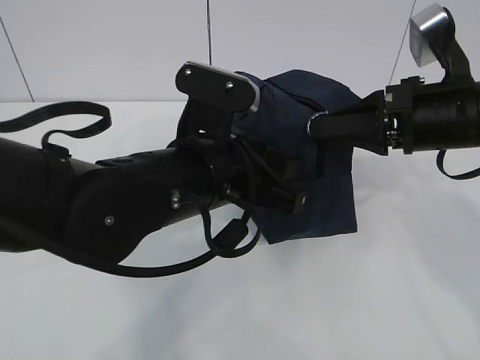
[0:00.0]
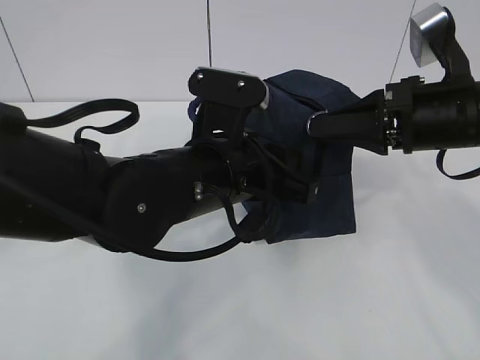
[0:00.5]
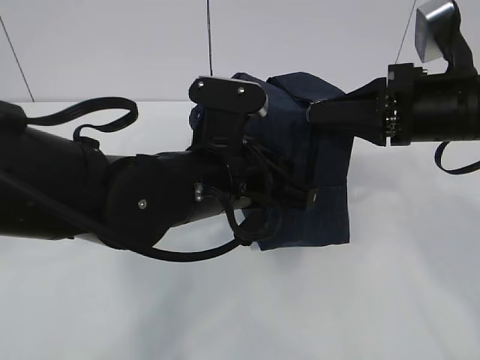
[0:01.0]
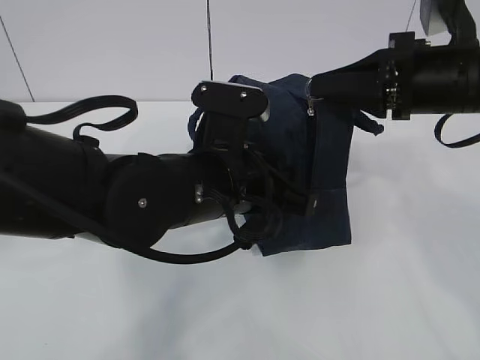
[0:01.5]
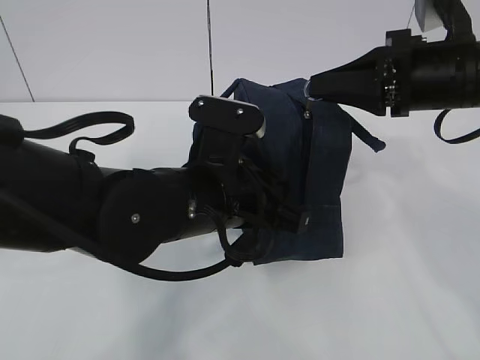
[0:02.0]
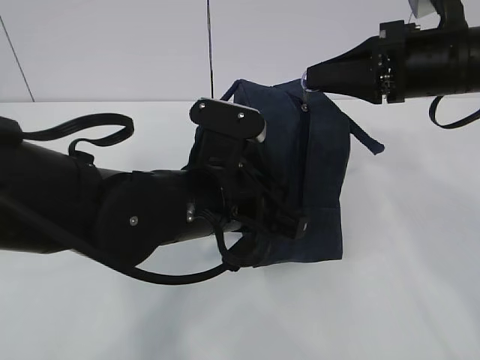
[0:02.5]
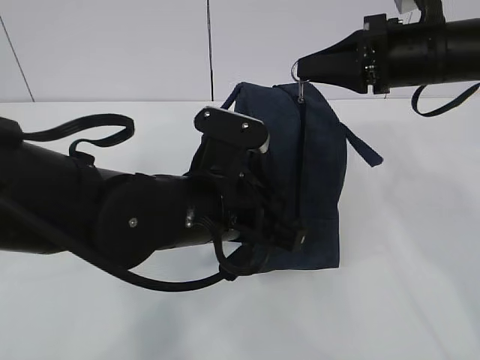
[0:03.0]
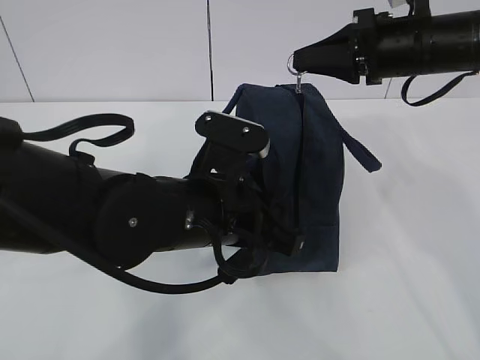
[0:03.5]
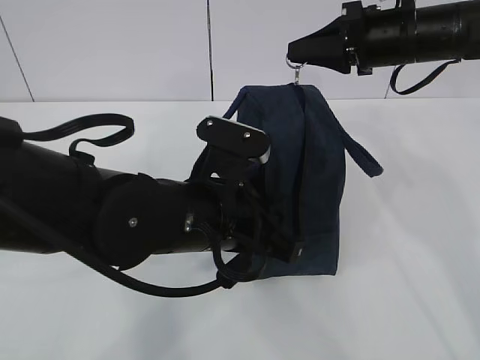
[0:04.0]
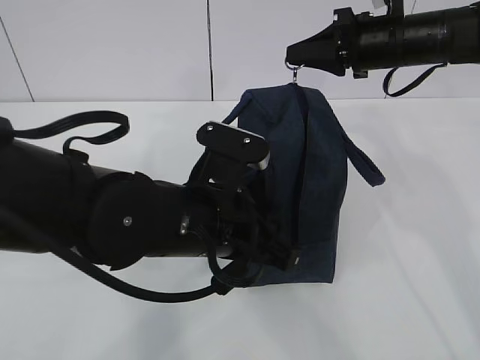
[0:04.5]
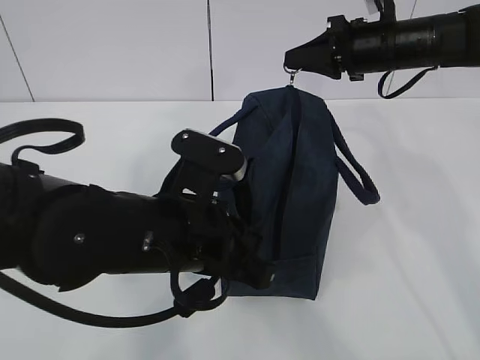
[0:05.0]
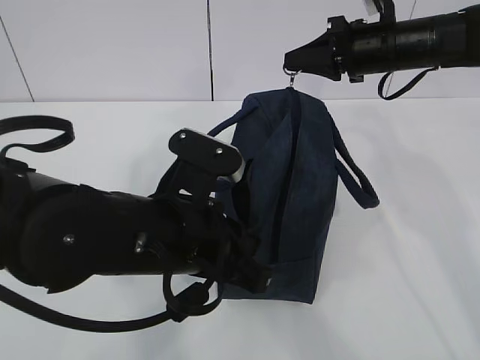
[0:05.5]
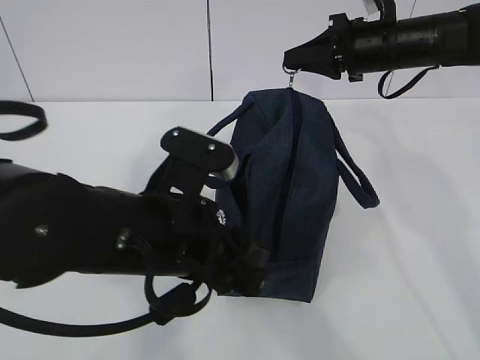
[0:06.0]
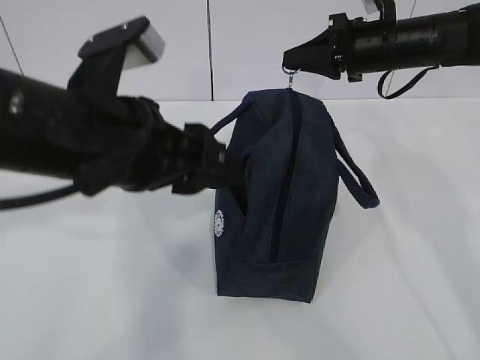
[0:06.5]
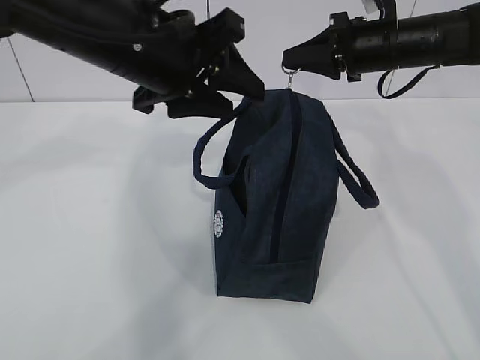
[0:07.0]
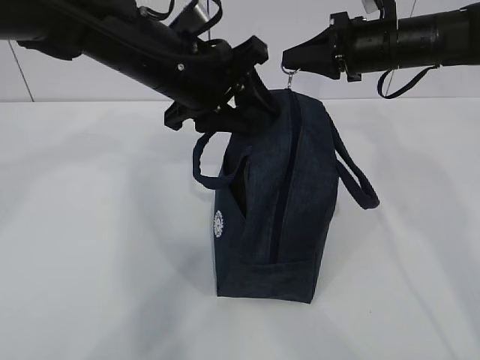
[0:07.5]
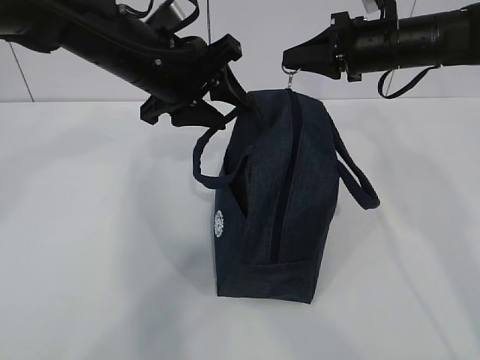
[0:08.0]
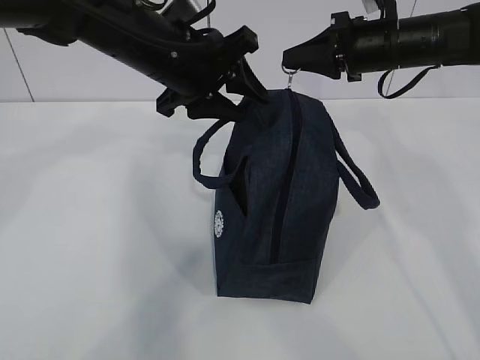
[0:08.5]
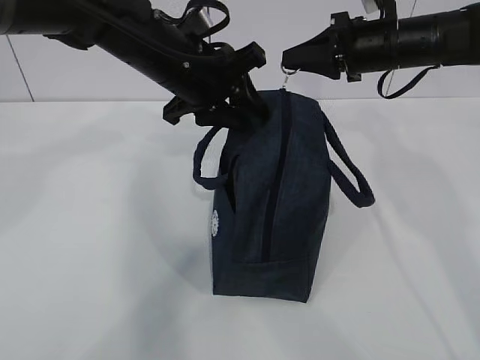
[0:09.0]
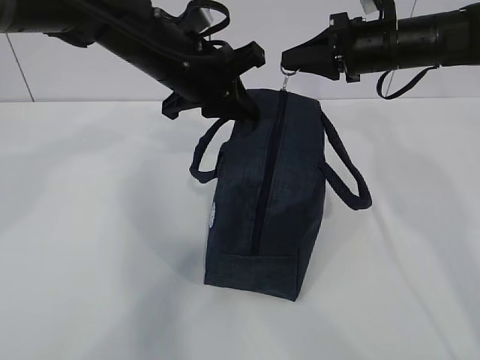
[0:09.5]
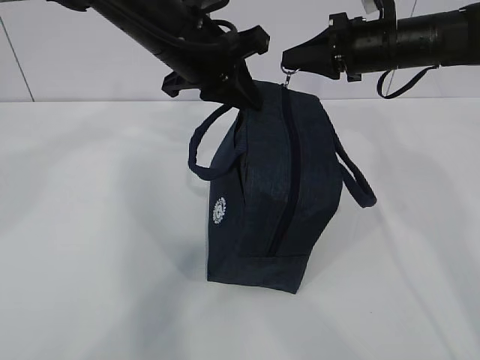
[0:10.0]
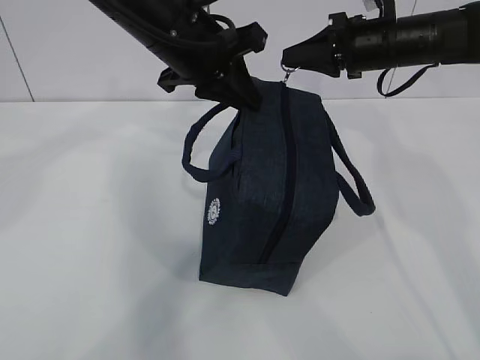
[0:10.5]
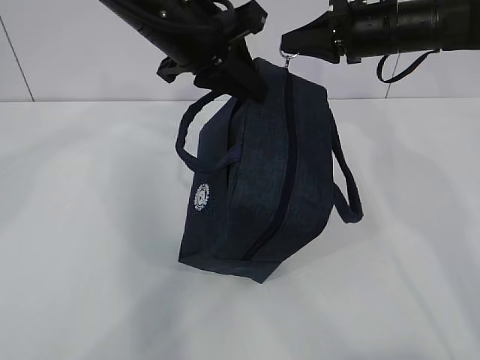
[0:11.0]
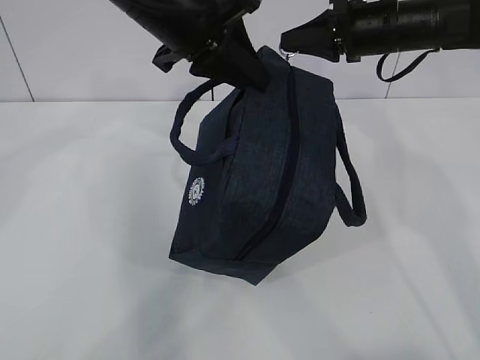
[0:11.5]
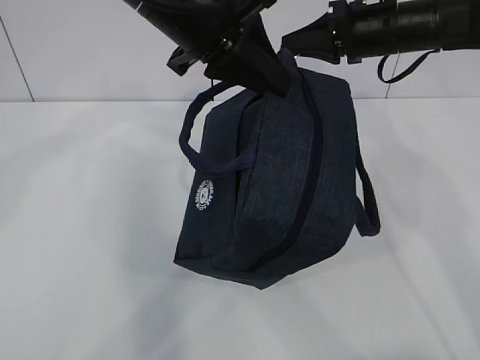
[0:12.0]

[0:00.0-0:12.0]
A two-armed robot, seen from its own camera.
0:00.0 to 0:02.0: The left gripper closes up.
0:02.0 to 0:04.0: The right gripper moves forward, roughly 10 cm.
0:04.0 to 0:06.0: The left gripper changes place by approximately 5 cm, and opens its fingers.
0:06.0 to 0:08.0: The left gripper goes approximately 15 cm forward.
0:08.0 to 0:10.0: The left gripper closes.
0:10.0 to 0:12.0: The left gripper goes about 10 cm upward and backward.

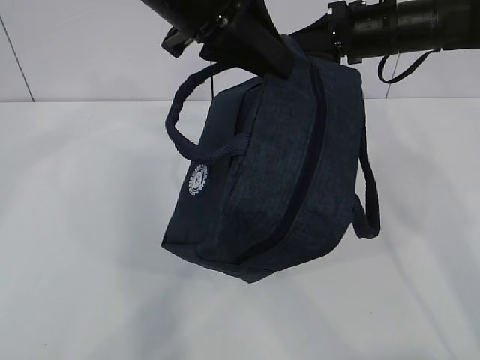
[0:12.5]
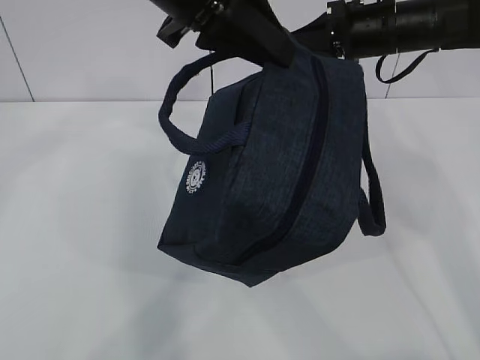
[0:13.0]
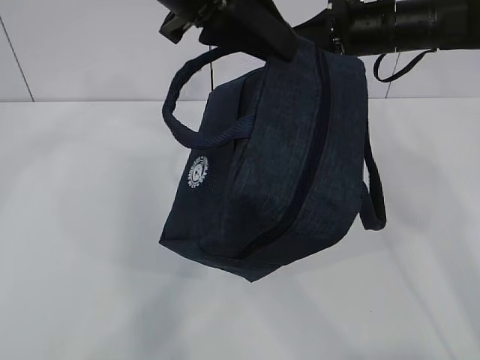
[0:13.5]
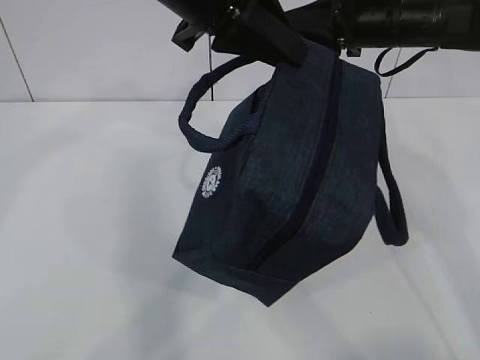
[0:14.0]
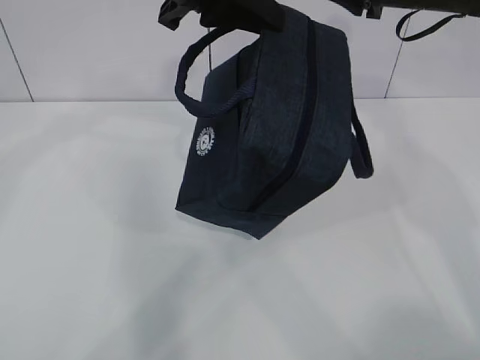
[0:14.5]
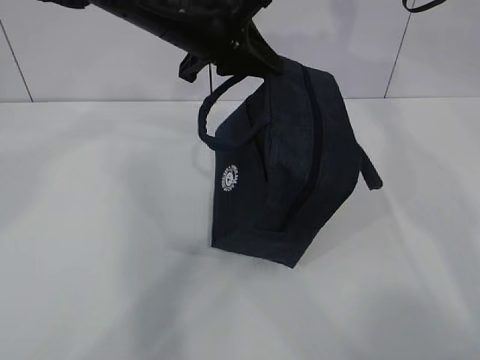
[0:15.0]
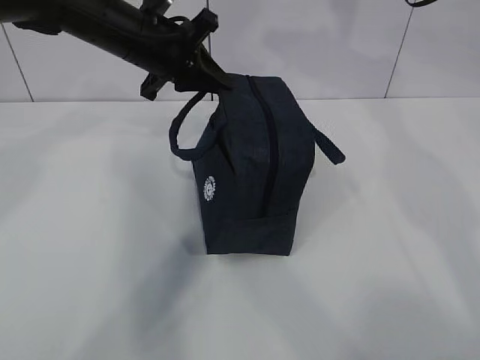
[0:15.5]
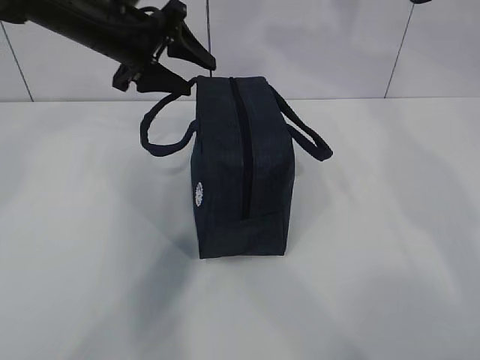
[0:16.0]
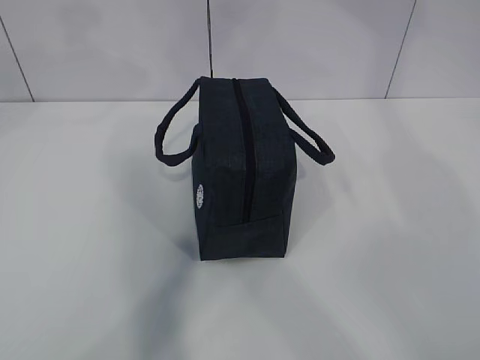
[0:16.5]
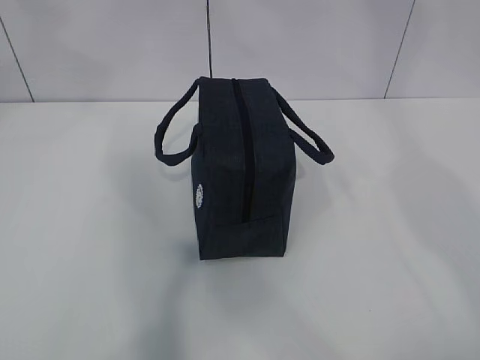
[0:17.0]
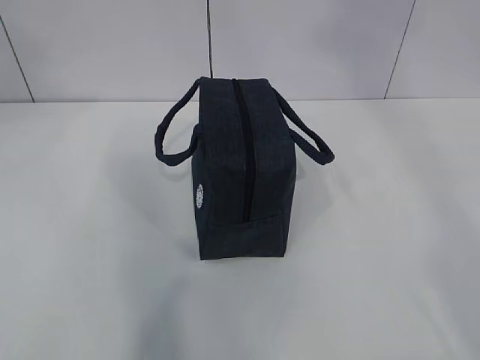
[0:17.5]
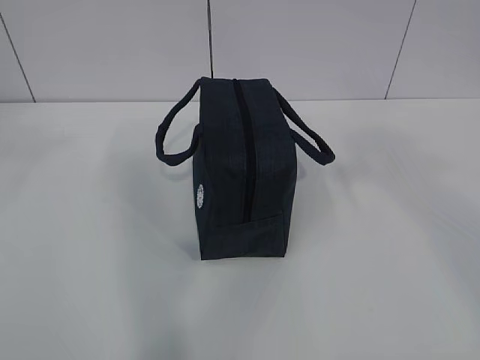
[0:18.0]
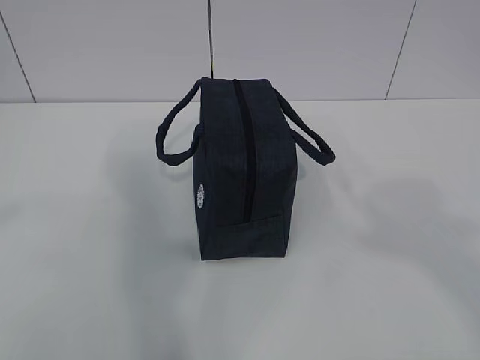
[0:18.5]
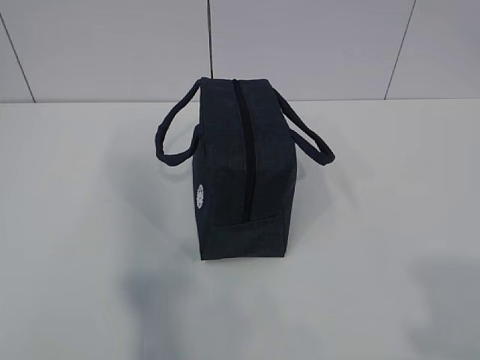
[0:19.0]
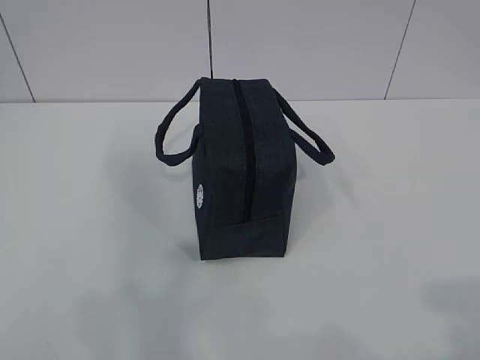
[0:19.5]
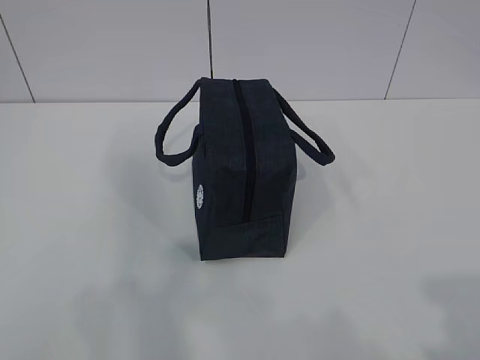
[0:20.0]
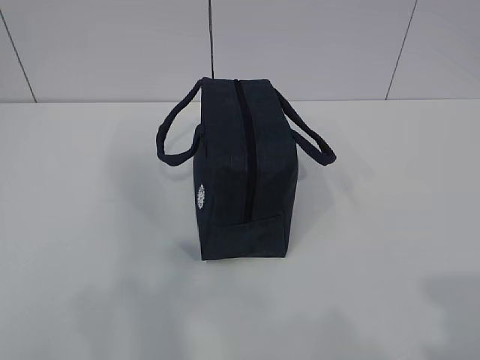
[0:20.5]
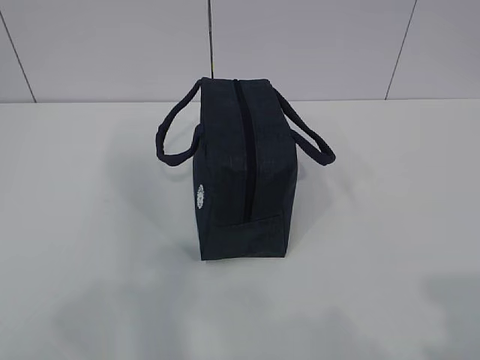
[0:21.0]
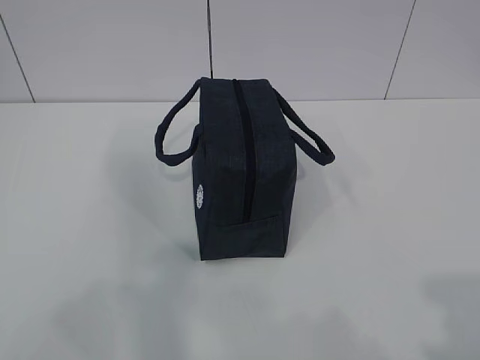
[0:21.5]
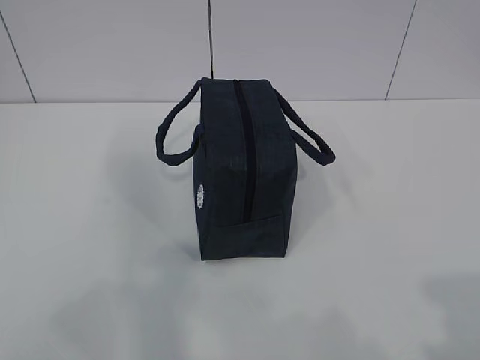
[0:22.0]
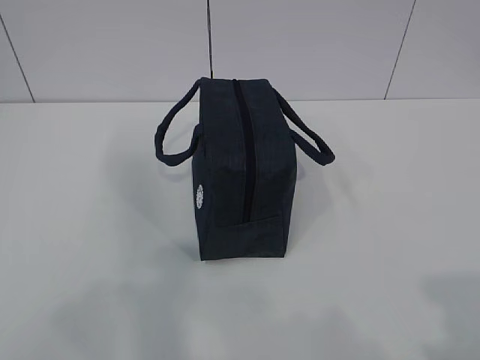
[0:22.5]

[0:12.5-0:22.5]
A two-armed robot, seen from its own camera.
Step, 0:12.5 to 0:16.0: zip up the zipper to close the bag.
0:12.5 to 0:14.5: The right gripper shifts about 5 cm upward, and opens its fingers.
0:14.5 to 0:16.5: The left gripper shifts some 15 cm to the left, reaches about 10 cm downward, then returns, and opens up; the right gripper heads upward, covering some 20 cm.
0:16.5 to 0:18.5: Both grippers move backward, roughly 40 cm.
0:20.5 to 0:22.5: The grippers make only small movements.

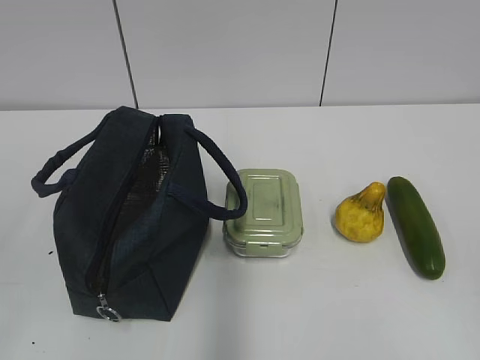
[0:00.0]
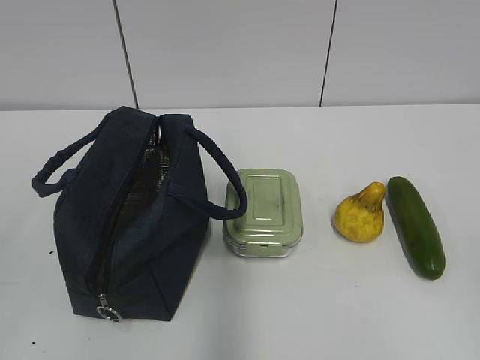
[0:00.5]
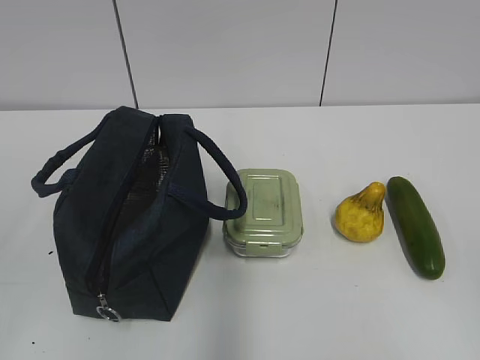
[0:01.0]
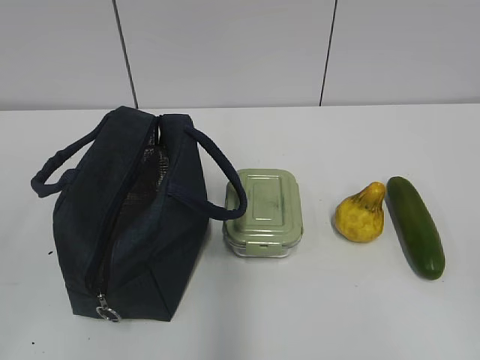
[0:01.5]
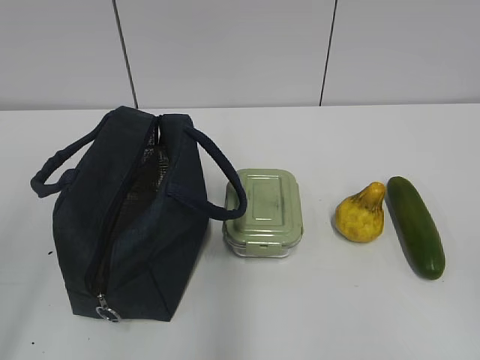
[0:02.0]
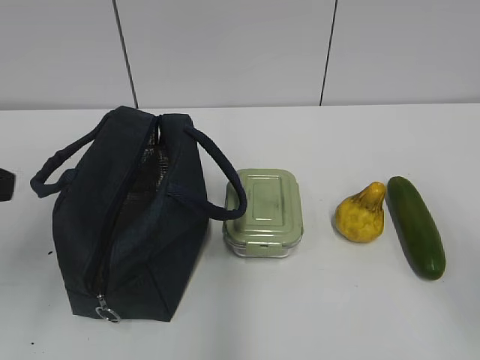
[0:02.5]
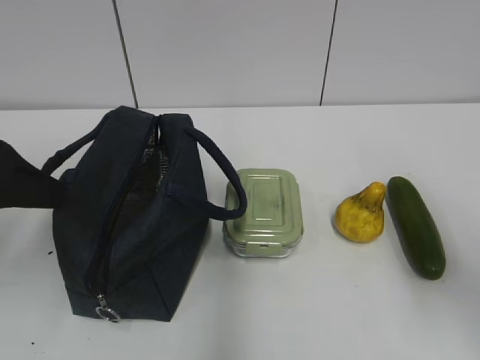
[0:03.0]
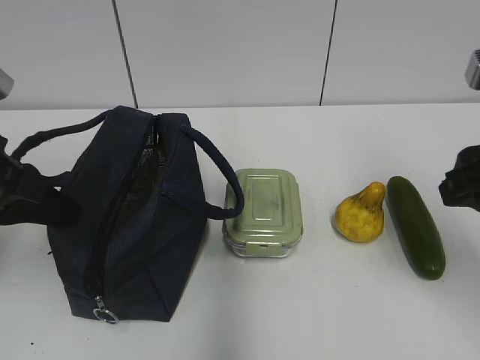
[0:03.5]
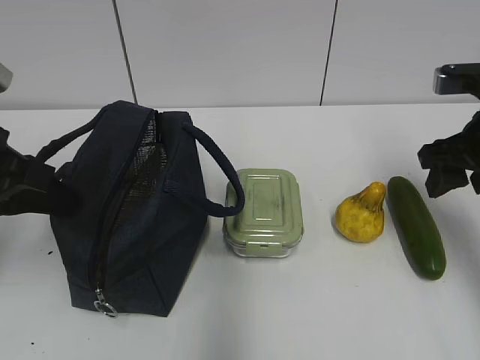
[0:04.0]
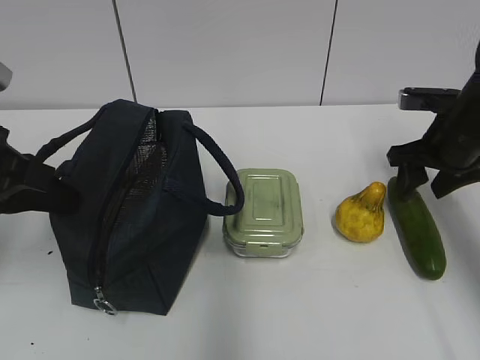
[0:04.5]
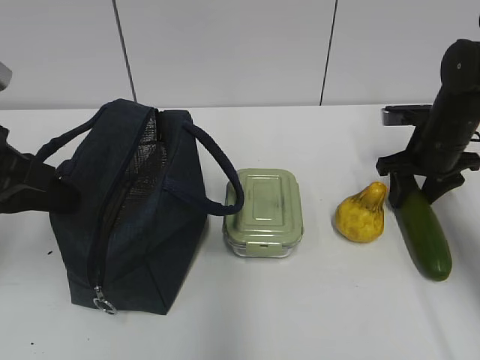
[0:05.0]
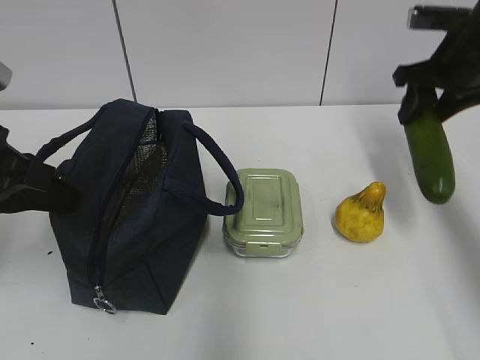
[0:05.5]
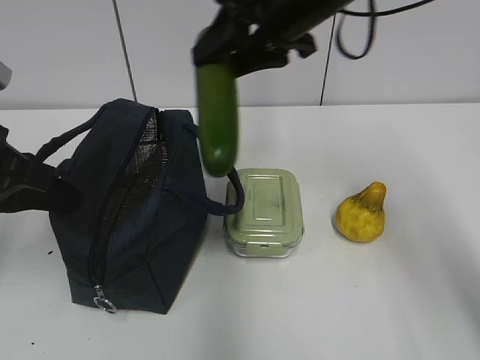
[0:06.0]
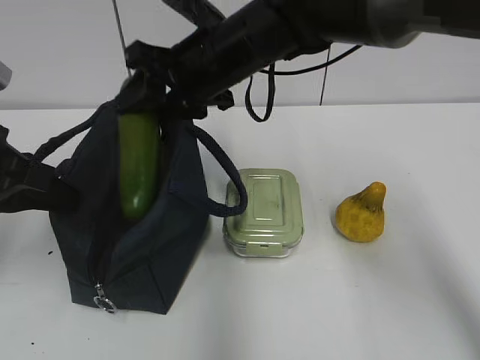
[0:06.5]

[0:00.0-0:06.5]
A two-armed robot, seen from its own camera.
Step, 0:00.0 to 0:03.0: Grab the lunch bag with your left hand.
Step, 0:04.0 to 0:05.0: Grab the cucumber with your right hand.
0:02.0 to 0:04.5: The right gripper shifts approximately 40 cm forward, and opens, while the left gripper travels forward by roughly 20 cm, and closes its fingers.
0:04.5 to 0:06.5: The right gripper shifts approximately 30 cm to the left.
